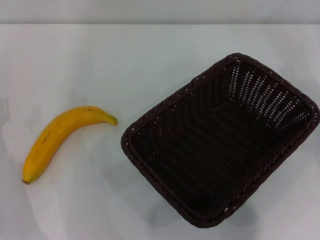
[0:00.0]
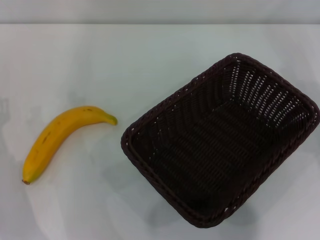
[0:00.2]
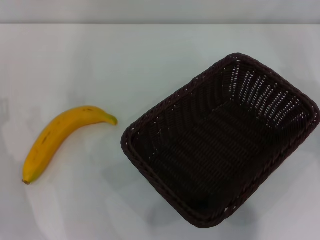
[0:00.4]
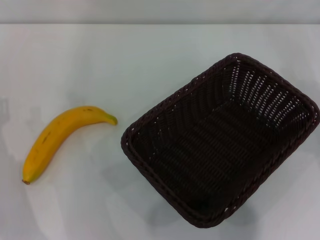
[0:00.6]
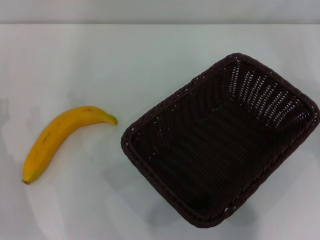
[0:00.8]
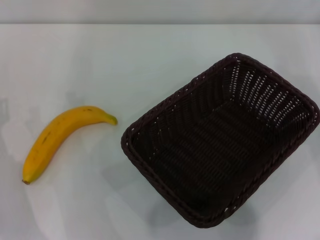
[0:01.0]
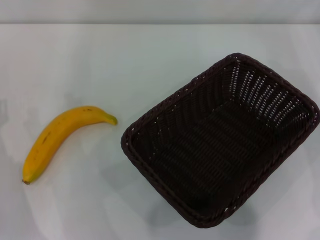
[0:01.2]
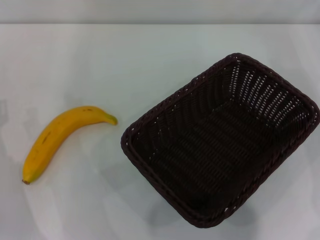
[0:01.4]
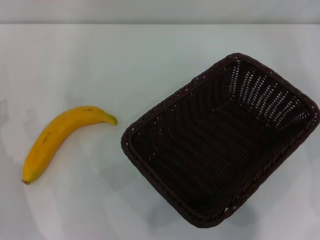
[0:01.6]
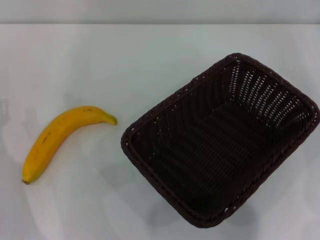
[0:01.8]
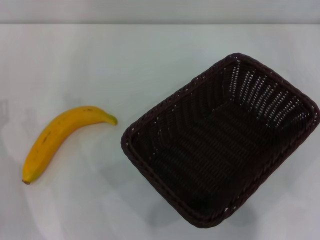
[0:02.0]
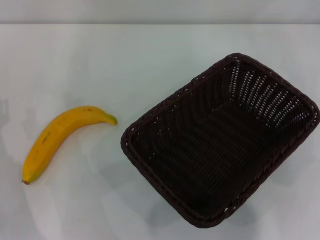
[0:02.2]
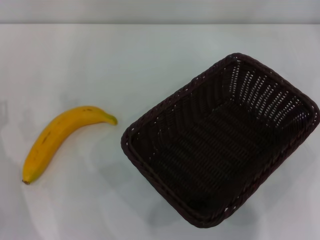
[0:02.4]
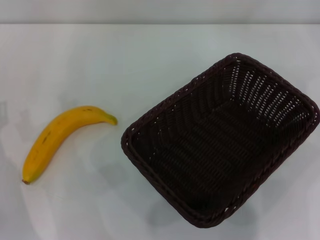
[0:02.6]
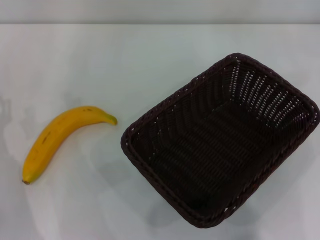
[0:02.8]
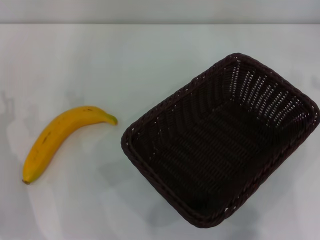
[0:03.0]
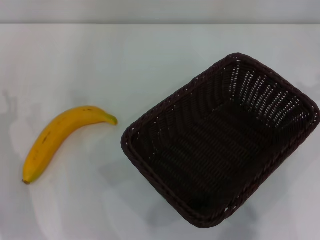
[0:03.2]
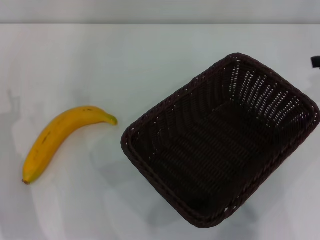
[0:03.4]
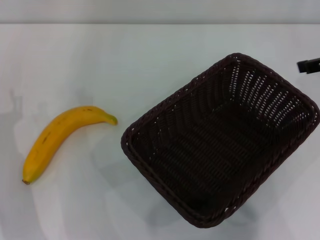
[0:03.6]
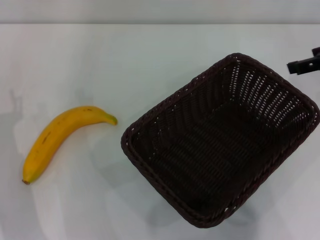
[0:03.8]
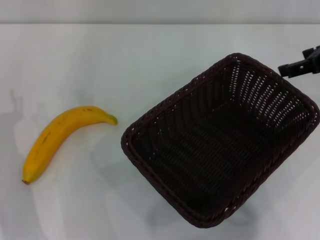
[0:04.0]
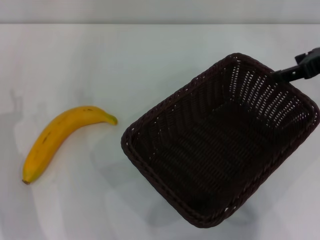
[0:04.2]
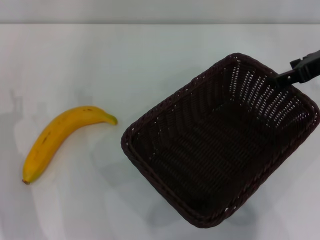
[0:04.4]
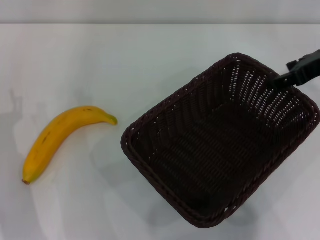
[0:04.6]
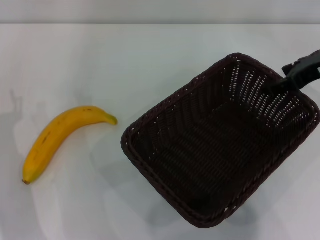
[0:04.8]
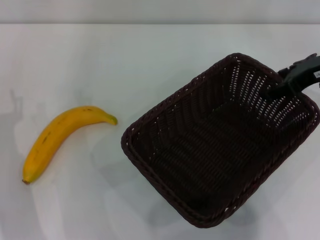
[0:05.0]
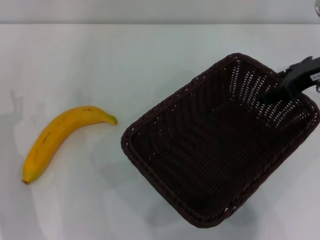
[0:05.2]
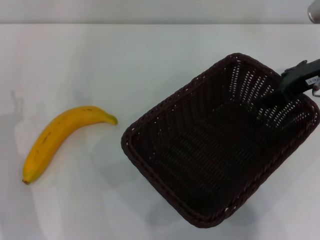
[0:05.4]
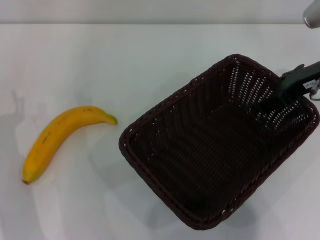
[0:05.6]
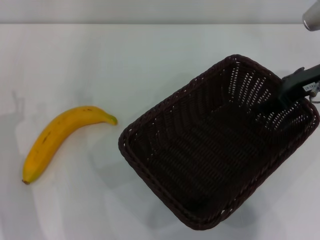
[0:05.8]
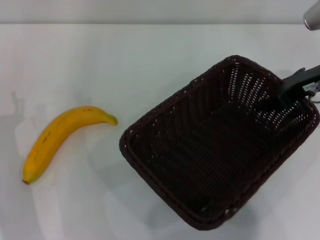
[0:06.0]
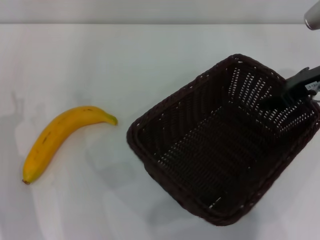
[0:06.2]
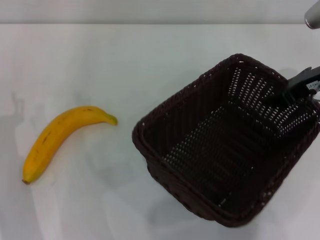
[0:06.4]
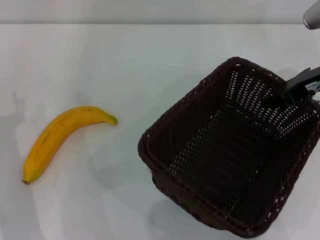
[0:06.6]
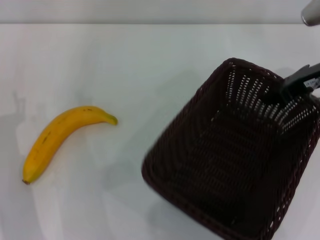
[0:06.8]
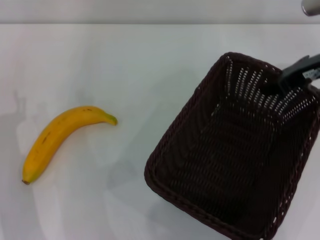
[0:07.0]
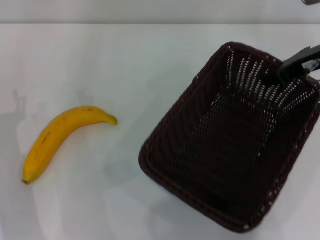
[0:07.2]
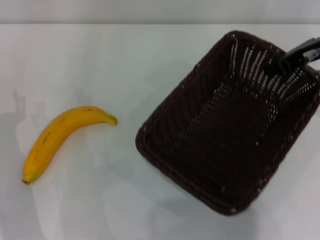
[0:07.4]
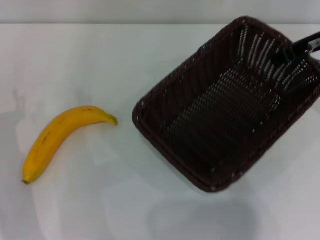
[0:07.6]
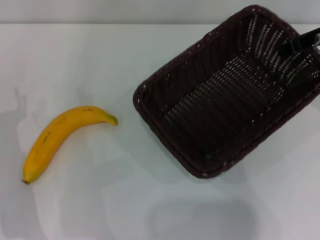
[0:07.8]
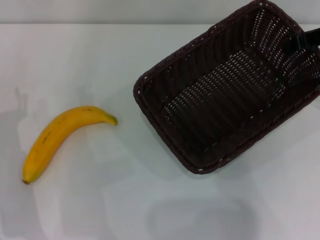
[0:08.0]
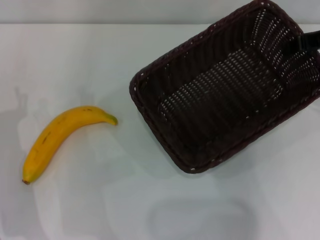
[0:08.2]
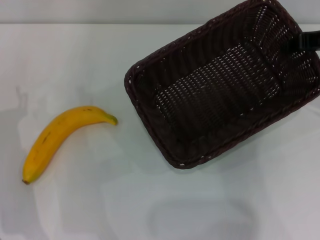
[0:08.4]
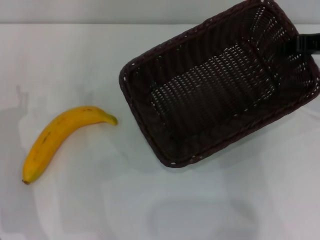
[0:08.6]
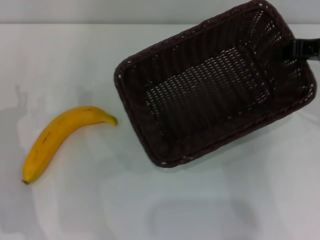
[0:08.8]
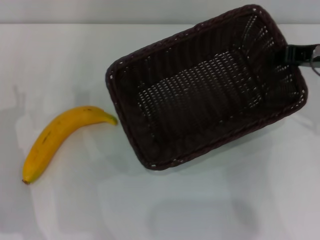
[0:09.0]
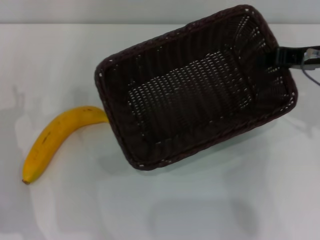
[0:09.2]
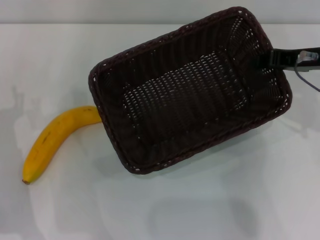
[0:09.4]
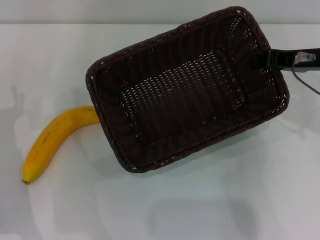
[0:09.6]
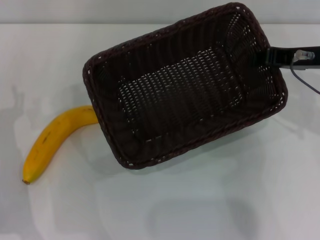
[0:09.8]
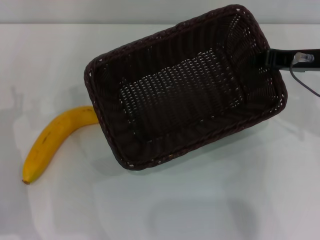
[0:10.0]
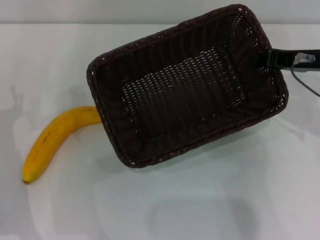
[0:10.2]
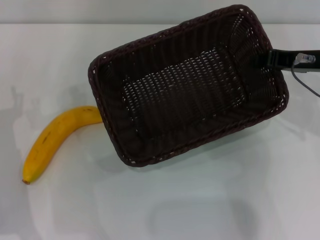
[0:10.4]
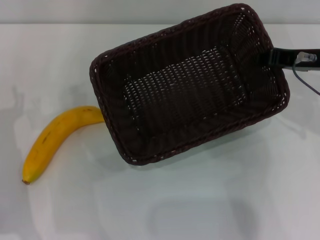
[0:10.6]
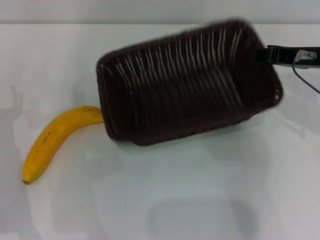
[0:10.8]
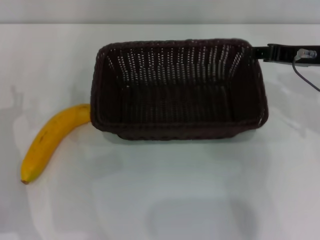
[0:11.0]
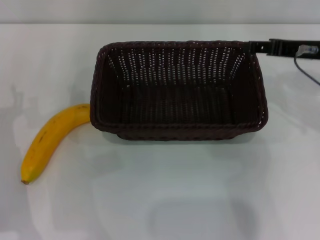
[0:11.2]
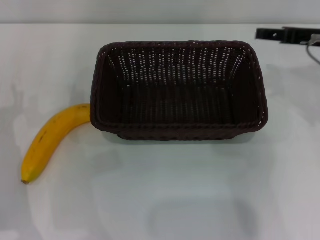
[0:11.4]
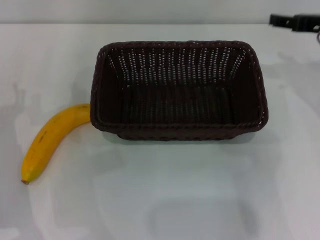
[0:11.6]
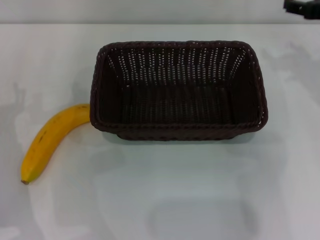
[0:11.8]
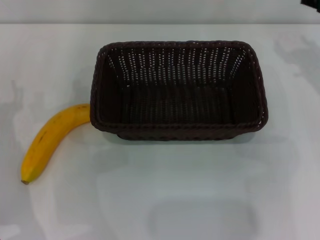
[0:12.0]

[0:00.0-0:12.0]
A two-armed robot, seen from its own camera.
Step, 0:00.0 to 0:07.8: Pick up the dark basket with the right gripper.
Step, 0:08.0 to 0:11.4: Place the dark basket in the center of view with the right gripper.
0:03.0 to 0:04.4: The right gripper travels to the left by approximately 10 cm.
0:04.4 to 0:06.0: The grippers move only a little.
0:06.0 to 0:07.6: The right gripper closes its fingers.
0:09.0 to 0:10.4: The grippers stay close to where they were, moving slightly.
0:10.4 to 0:12.0: The right gripper heads to the right, covering roughly 5 cm, and opens.

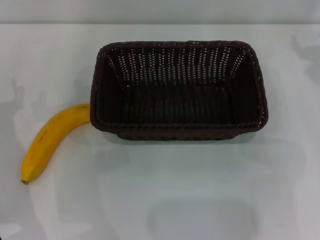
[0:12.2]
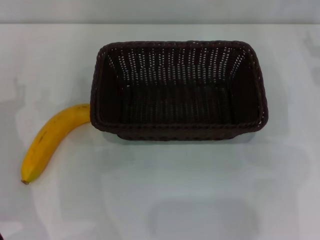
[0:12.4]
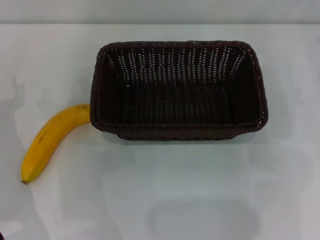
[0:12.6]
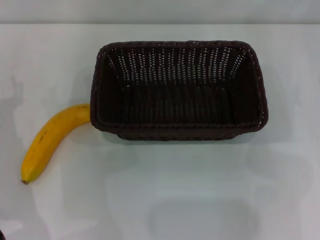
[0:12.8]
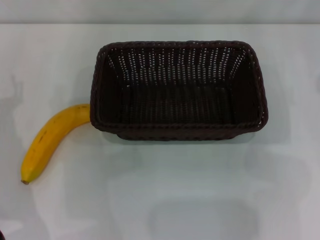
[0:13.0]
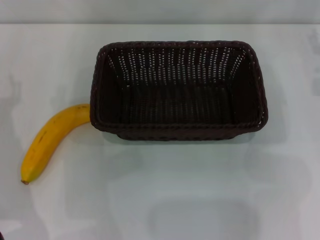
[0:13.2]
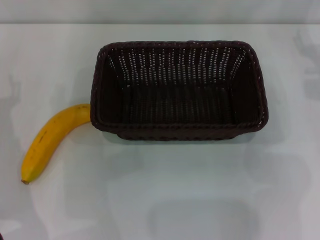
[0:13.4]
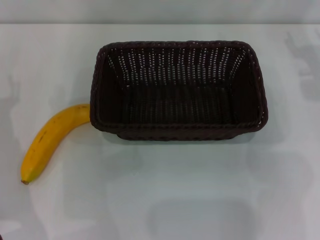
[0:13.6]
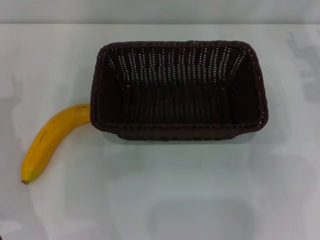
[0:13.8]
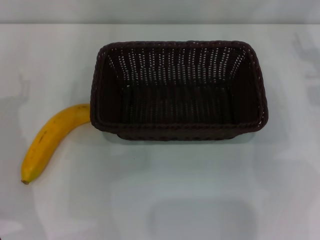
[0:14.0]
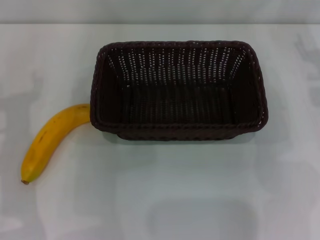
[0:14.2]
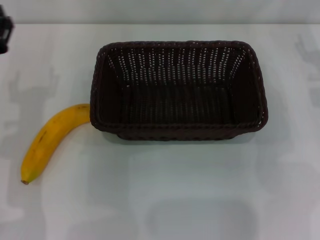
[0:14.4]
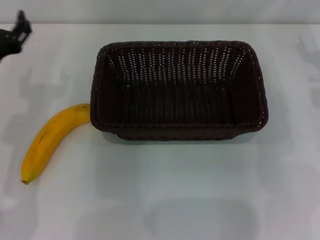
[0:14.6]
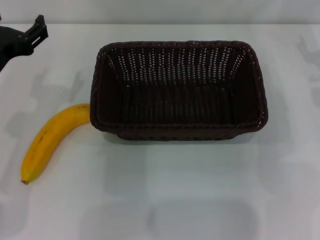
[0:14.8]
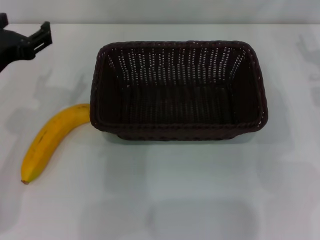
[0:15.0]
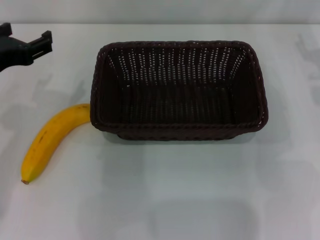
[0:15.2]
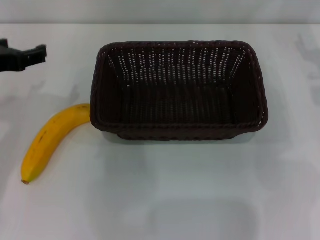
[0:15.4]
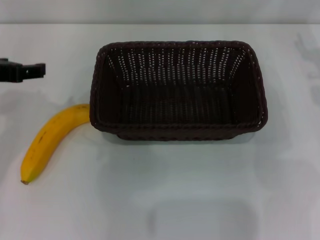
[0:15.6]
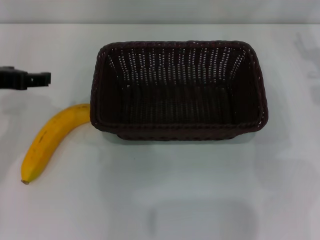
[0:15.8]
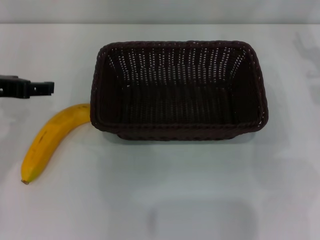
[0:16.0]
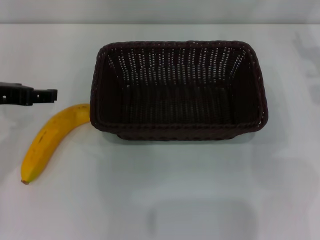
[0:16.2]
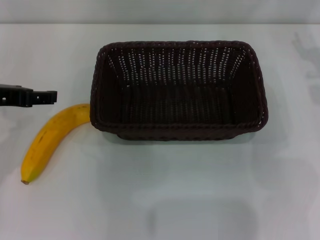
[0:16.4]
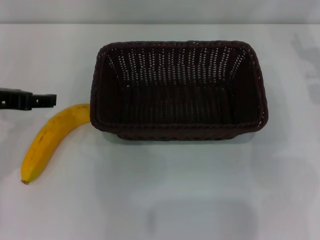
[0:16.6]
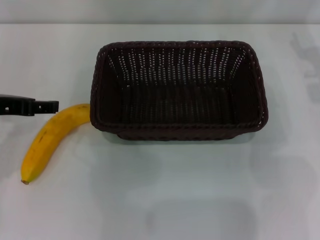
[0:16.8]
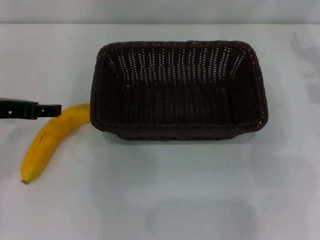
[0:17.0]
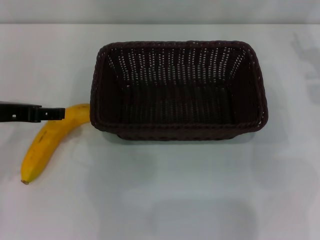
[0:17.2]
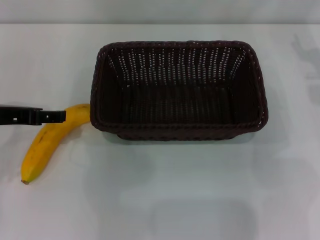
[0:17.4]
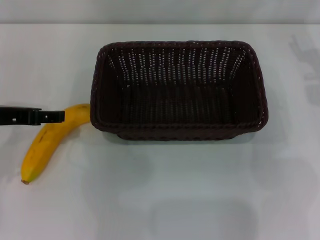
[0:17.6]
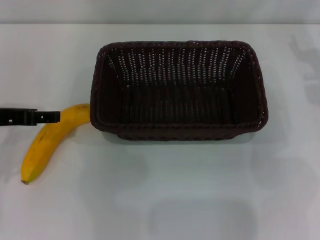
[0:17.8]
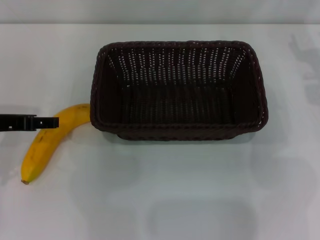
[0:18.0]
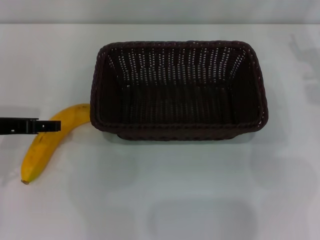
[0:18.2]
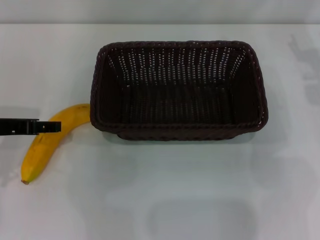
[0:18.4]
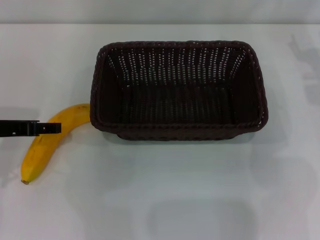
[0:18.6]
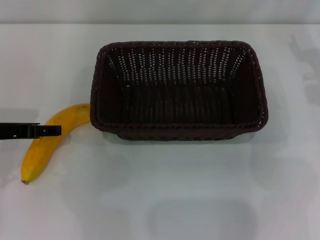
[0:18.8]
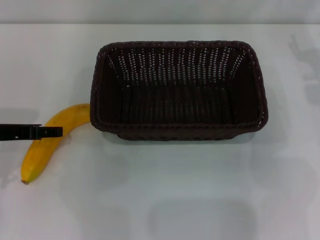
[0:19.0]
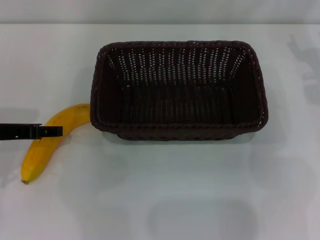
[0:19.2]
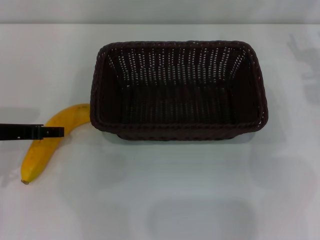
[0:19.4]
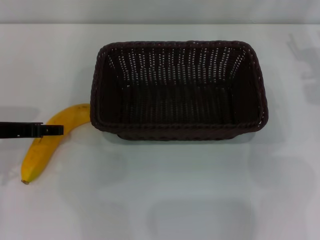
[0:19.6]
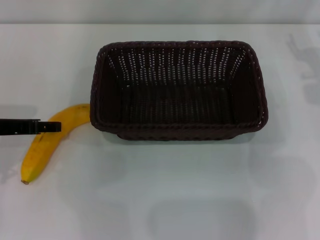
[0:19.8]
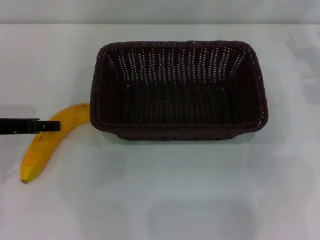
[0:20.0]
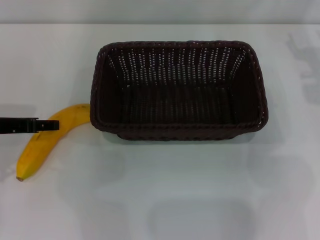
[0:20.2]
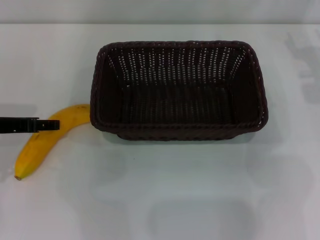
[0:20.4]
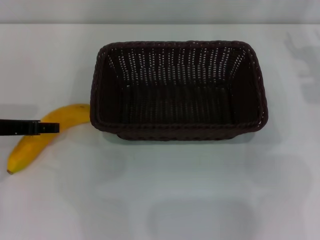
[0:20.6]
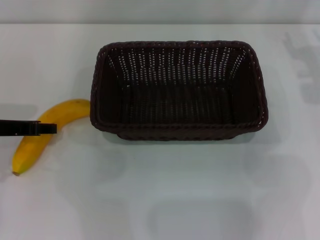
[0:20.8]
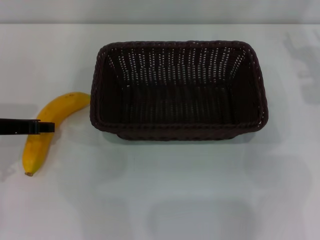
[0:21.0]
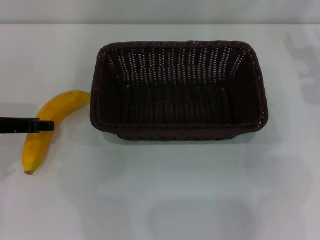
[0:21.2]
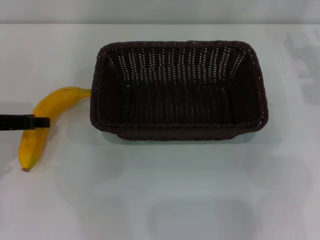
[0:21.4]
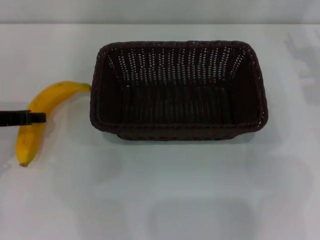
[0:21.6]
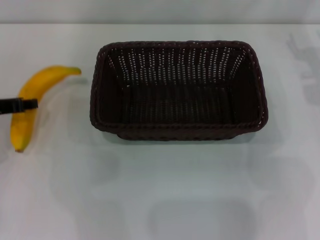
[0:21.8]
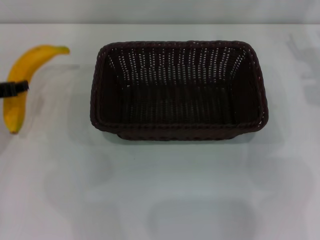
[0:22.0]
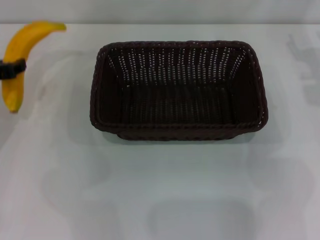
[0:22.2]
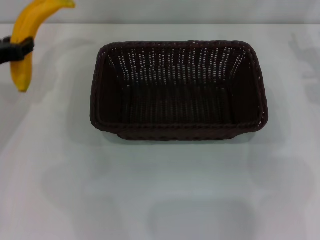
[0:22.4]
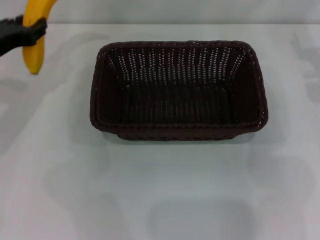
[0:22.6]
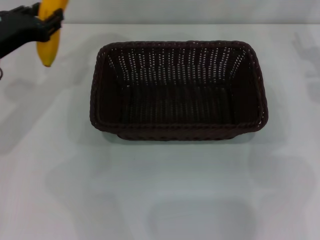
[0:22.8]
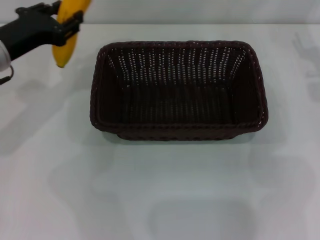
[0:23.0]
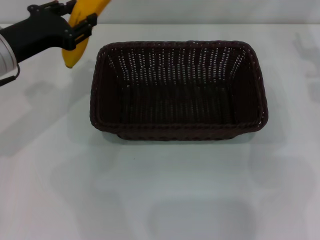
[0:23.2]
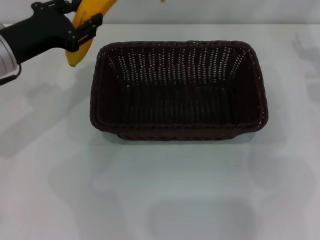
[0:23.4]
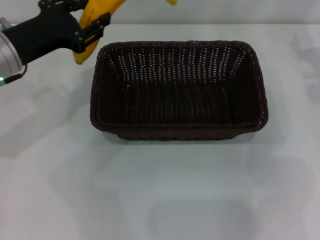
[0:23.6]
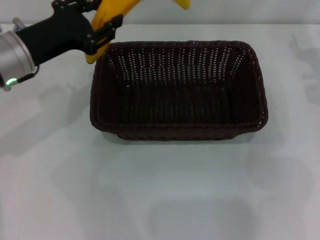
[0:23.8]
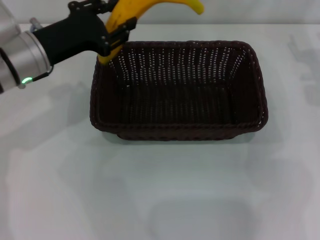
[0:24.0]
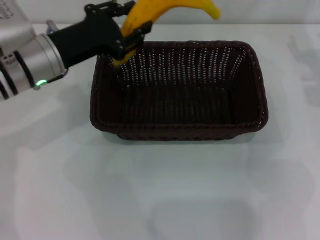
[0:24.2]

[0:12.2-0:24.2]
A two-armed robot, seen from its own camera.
Step, 0:12.2 to 0:22.0: Pick up the banana with the left gripper.
0:13.8 to 0:15.2: The left gripper goes roughly 10 cm upward.
0:16.6 to 0:18.2: The left gripper shifts some 5 cm downward.
0:19.8 to 0:21.2: The left gripper closes up.
0:21.2 to 0:22.6: The left gripper is displaced forward by approximately 5 cm.
0:22.6 to 0:24.2: The left gripper moves to the right, approximately 10 cm.
